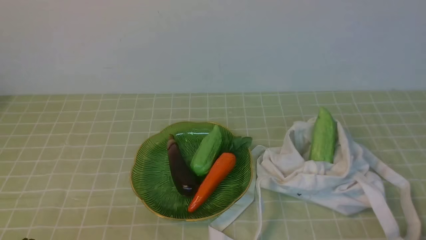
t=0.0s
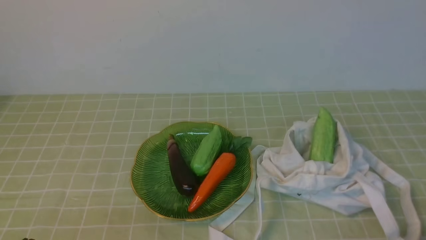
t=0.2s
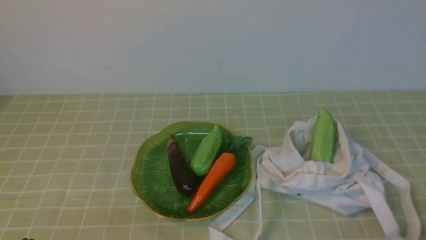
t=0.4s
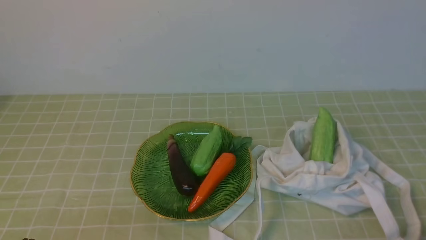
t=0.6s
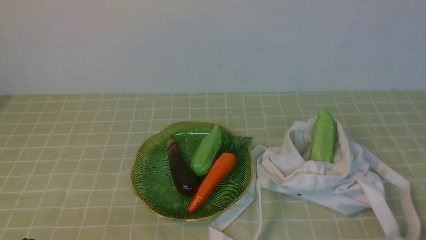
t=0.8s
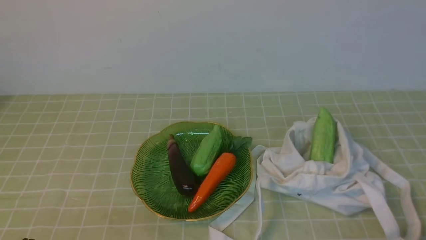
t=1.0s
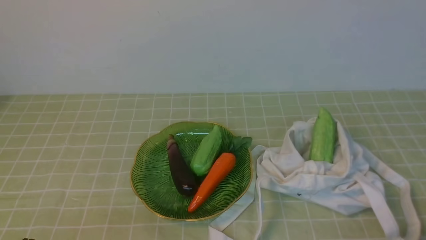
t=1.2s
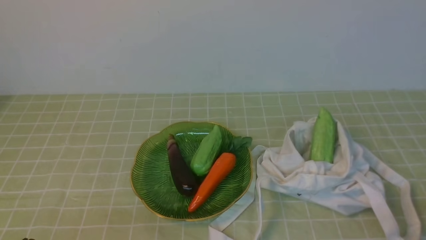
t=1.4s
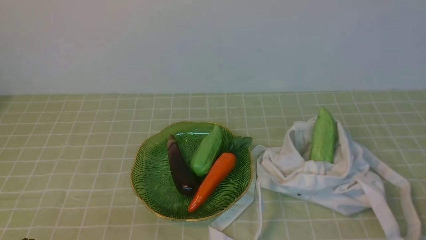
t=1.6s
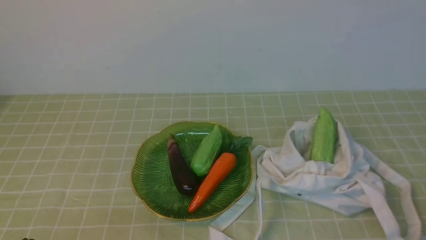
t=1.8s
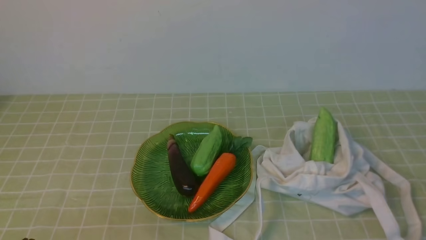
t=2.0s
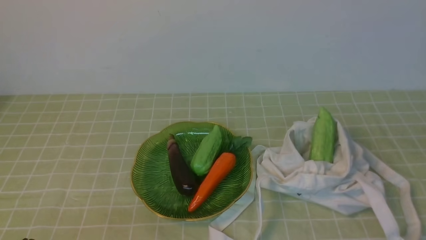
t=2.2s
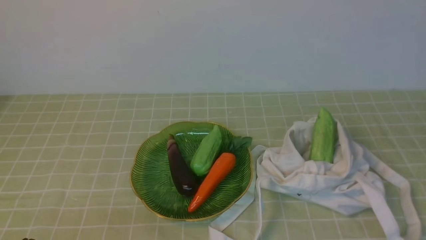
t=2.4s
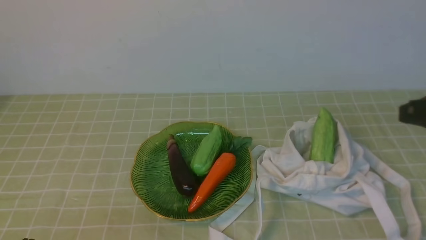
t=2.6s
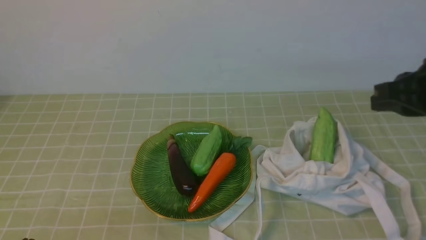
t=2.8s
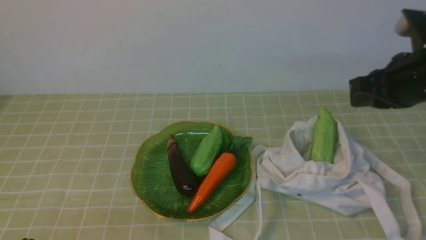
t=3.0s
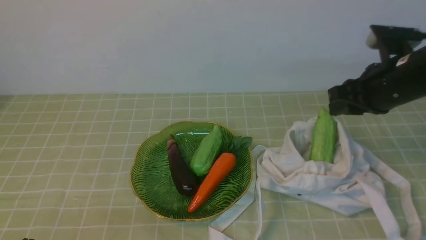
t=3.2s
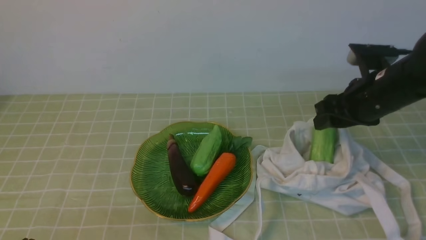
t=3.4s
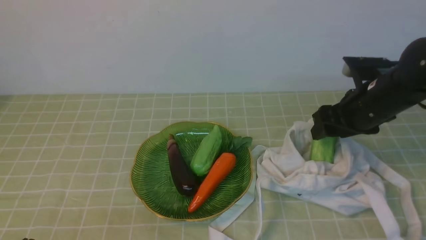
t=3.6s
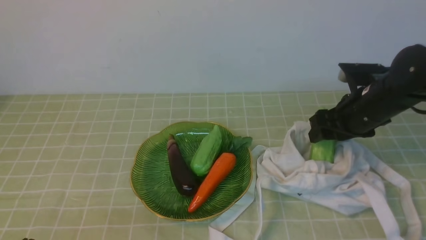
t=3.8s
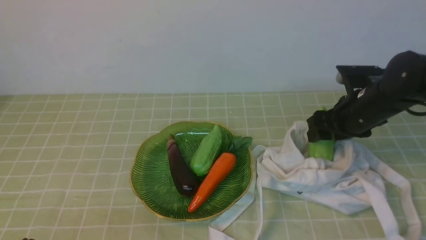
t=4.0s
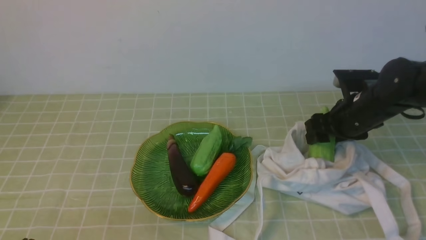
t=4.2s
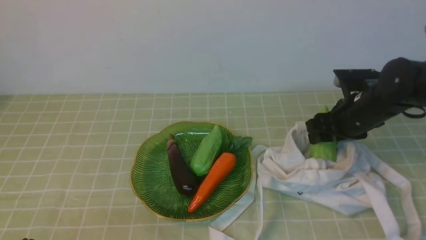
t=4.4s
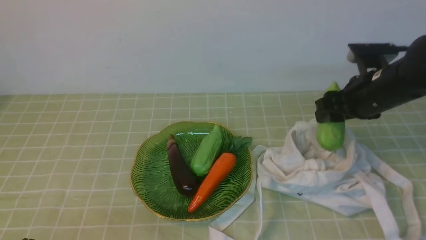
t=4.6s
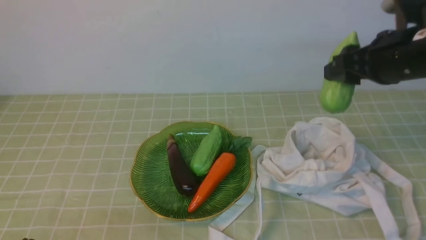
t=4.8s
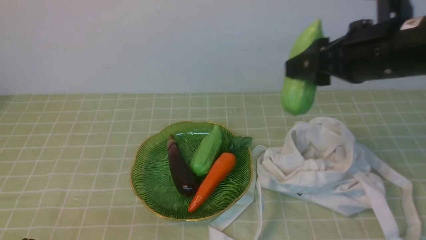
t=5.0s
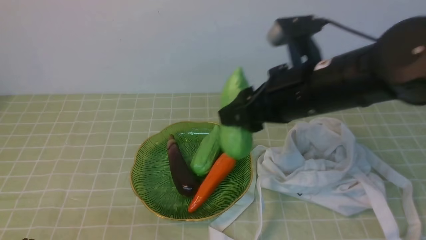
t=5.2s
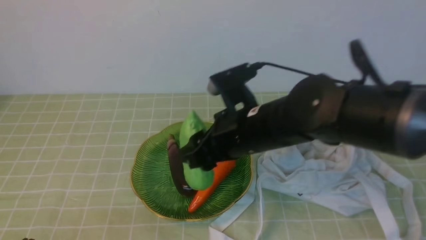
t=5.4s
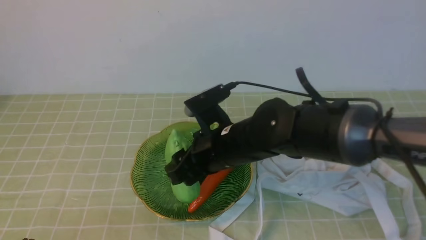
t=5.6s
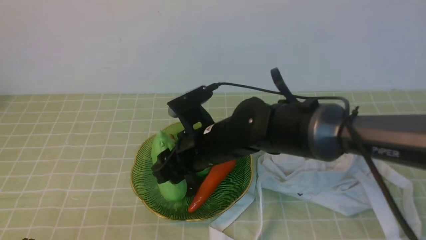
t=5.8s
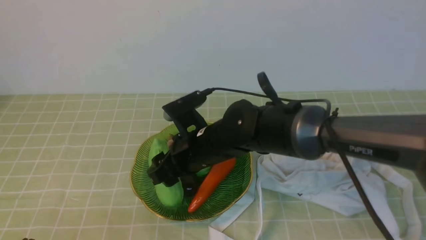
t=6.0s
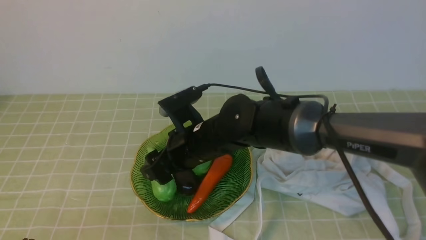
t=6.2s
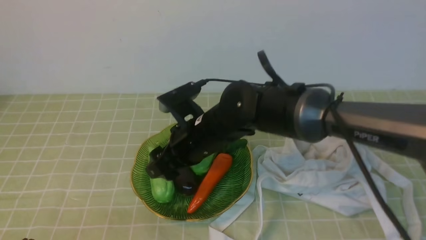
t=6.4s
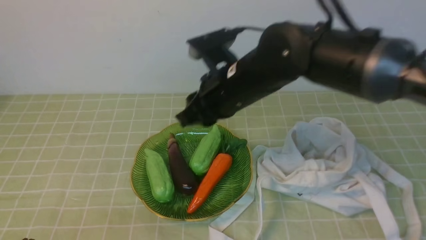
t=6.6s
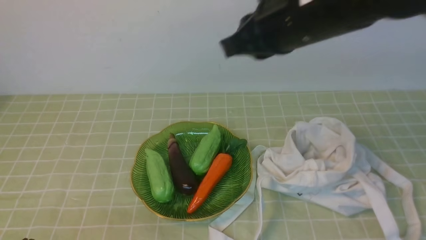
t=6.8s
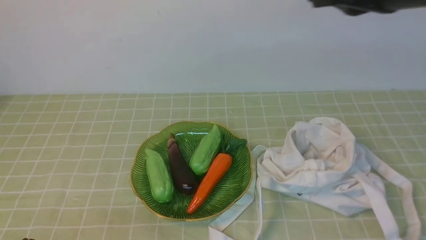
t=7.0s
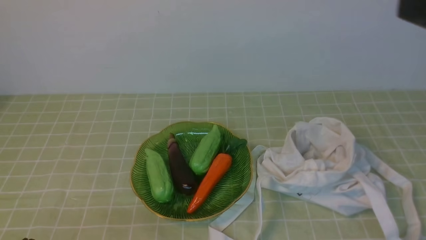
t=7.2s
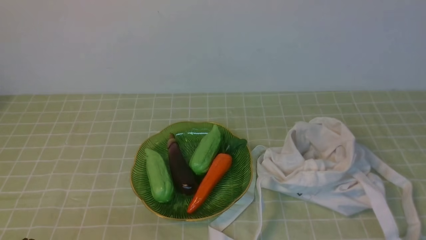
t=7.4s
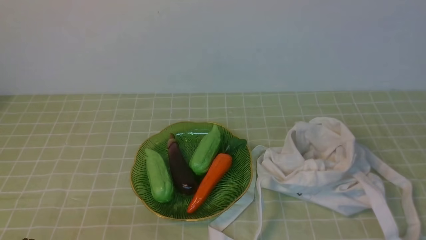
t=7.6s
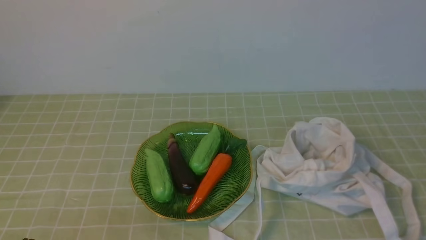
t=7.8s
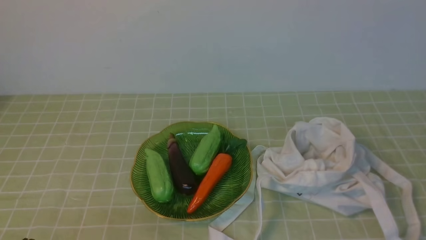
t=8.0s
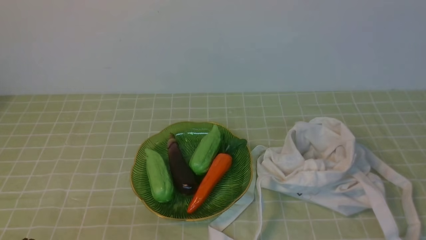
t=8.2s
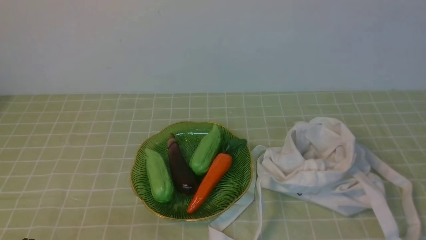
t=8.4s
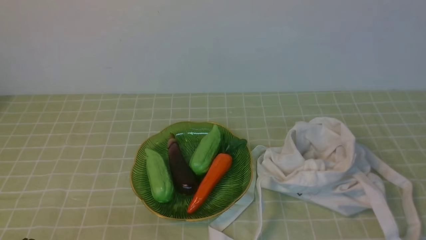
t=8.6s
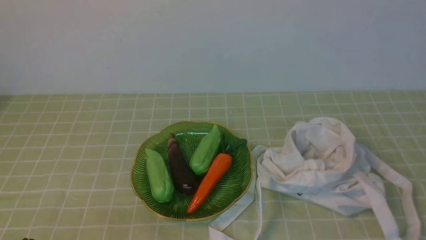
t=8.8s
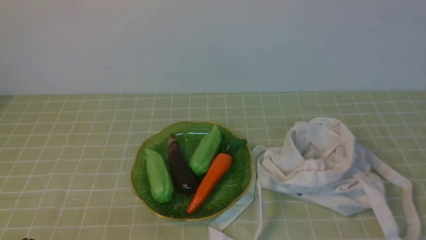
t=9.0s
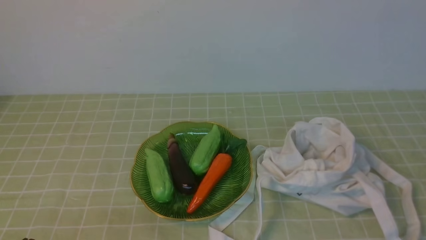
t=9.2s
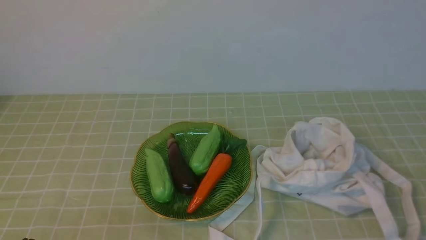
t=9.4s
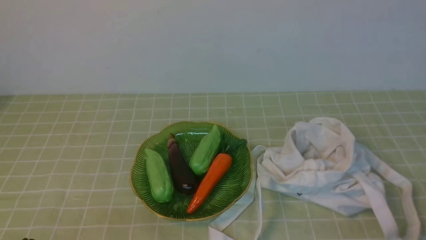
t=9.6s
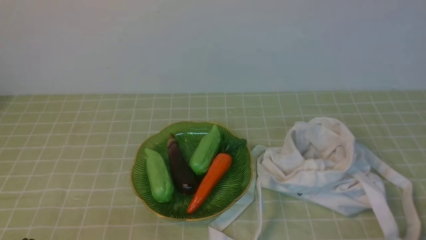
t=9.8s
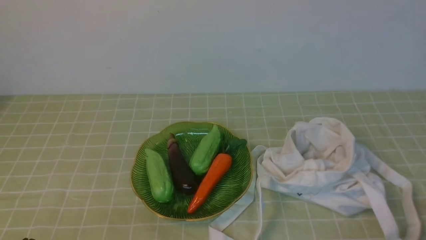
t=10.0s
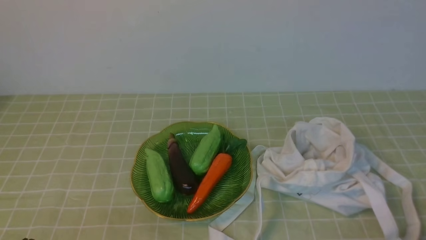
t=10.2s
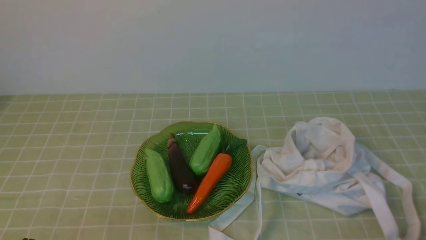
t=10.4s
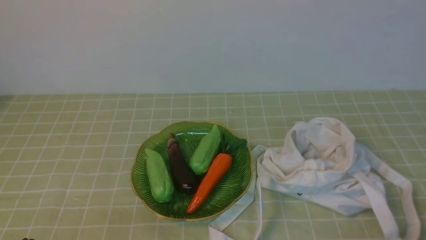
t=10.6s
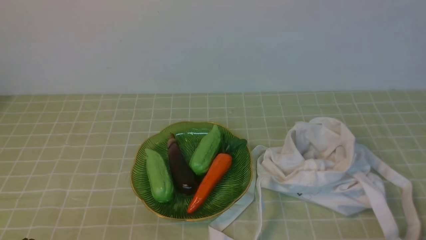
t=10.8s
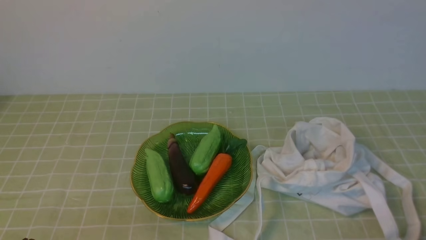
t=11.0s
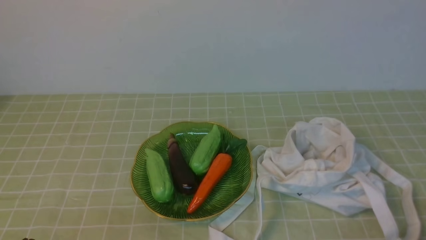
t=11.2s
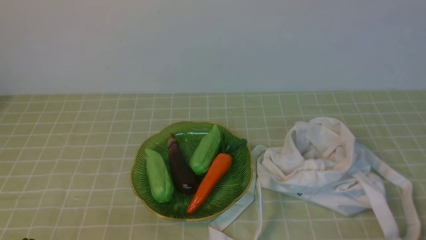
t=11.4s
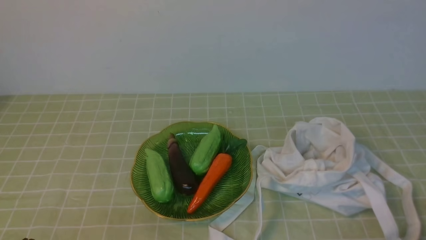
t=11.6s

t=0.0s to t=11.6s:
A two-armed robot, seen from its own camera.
Task of the whole recording: take vegetables from bag on green coffee tablecloth place on plate.
Step, t=0.0s to t=4.2s: Grasp the bitter melon with right gripper.
Step, t=4.4s to t=6.4s: Place the bitter melon on the plate with right gripper.
t=1.4s to t=2.8s: The right gripper is displaced forward and upward by some 25 cm.
t=2.8s to t=4.4s: The right gripper is displaced downward and forward by roughly 20 cm, and opens up.
t=4.4s to t=5.8s: The right gripper is displaced to the left by approximately 25 cm.
t=5.8s to t=7.2s: The right gripper moves upward, to the right and backward, roughly 35 cm, and closes its fingers.
t=7.2s to t=8.8s: The right gripper shifts approximately 20 cm backward, downward and to the right.
t=10.2s to t=11.6s: Both grippers stay put.

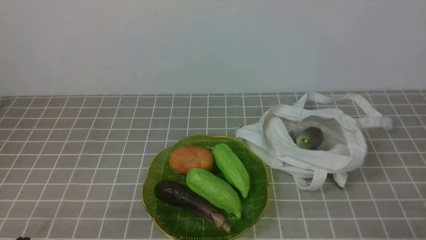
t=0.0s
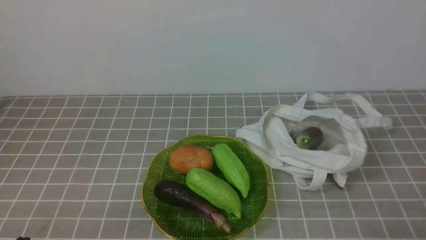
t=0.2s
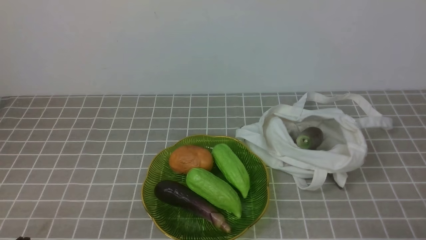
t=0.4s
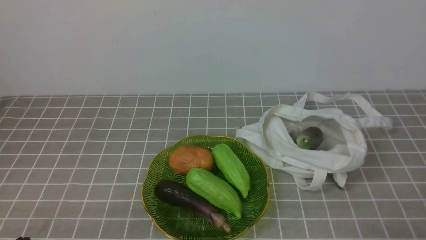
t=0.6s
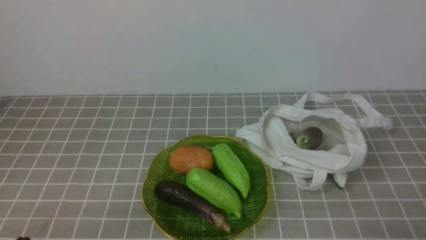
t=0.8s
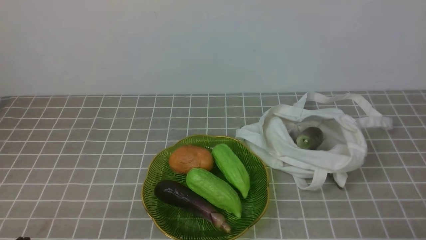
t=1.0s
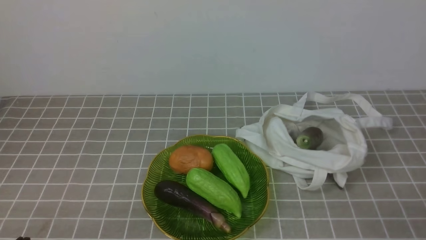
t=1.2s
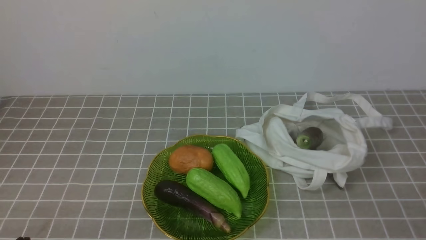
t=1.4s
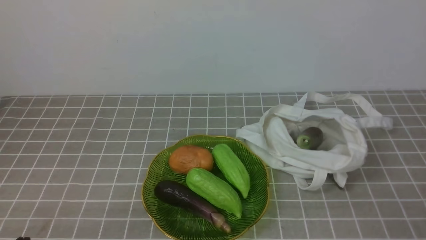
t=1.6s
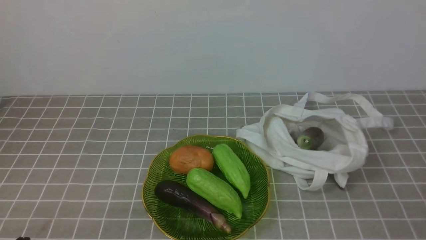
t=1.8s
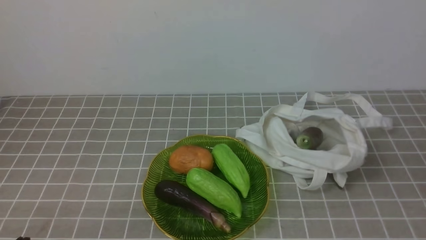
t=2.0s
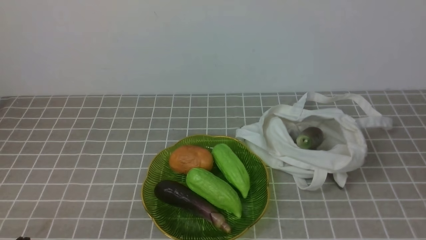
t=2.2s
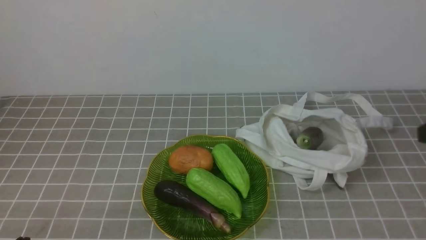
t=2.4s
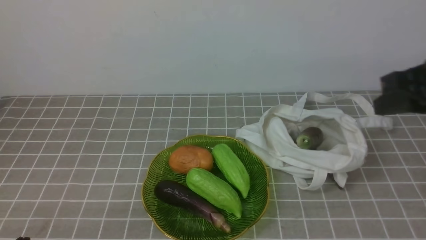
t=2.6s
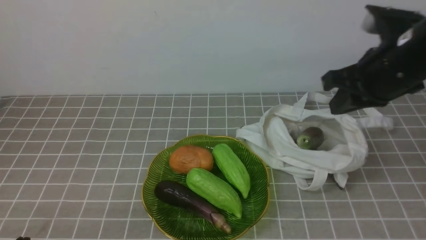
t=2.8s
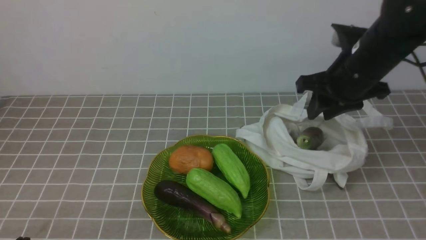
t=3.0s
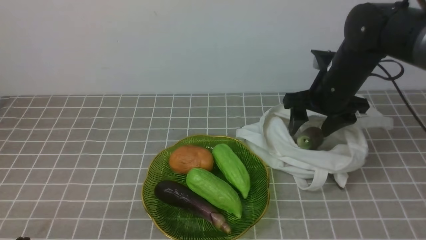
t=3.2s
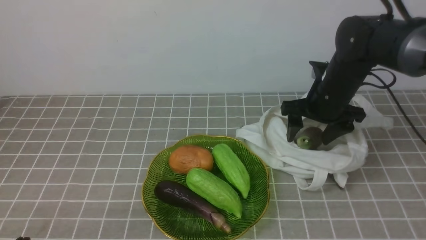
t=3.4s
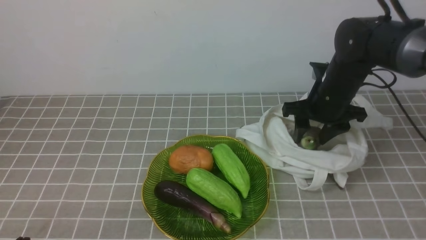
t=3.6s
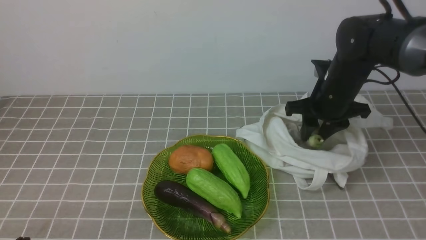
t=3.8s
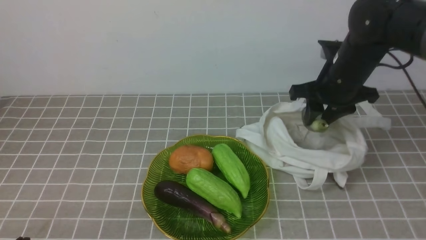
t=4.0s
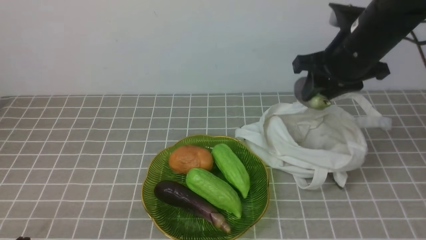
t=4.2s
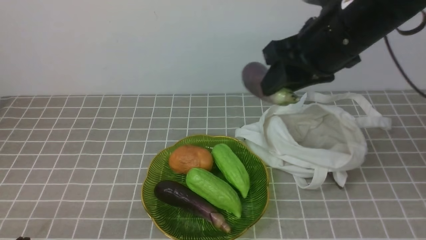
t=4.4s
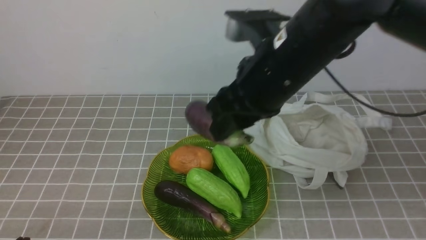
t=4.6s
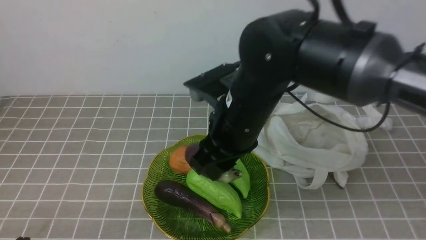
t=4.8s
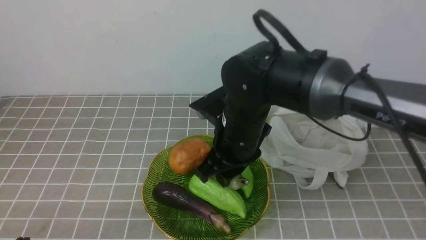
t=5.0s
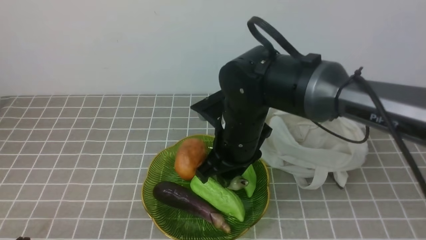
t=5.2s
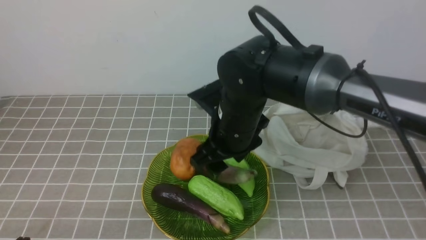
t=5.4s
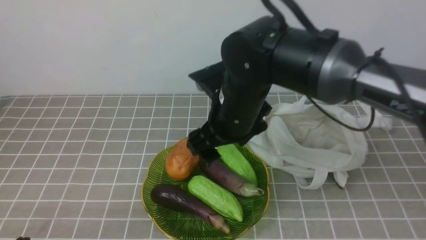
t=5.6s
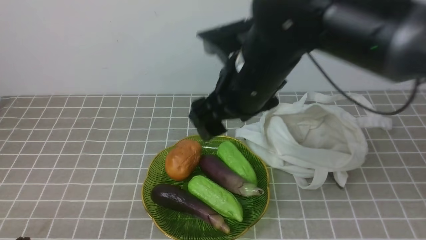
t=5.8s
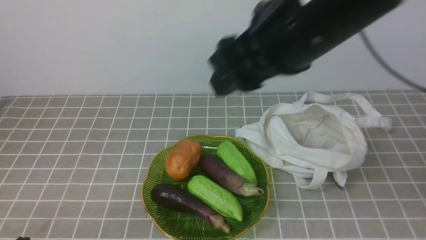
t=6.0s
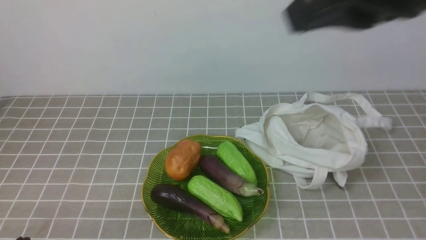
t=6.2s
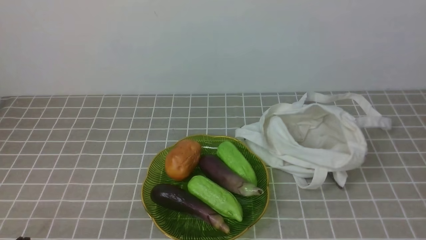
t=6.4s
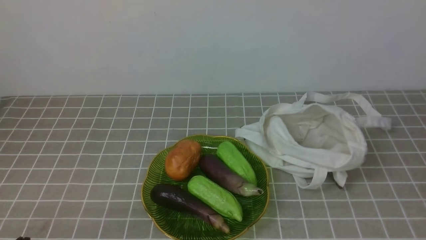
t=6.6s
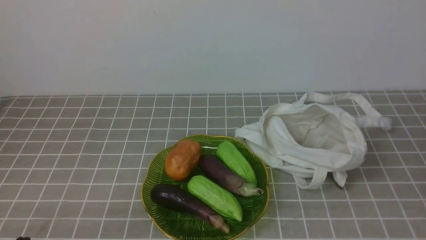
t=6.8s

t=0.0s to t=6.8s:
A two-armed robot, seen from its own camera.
Task of the whole recording: take vegetables from bag on grey coffee tablecloth place on plate.
Step, t=0.0s to t=3.6s: Grasp the eggplant with right gripper.
Step, t=3.8s to t=5.8s: Place the eggplant on the plate with right gripper.
t=1.4s to t=2.8s: The right gripper goes some 30 cm forward and upward.
t=2.8s to t=4.0s: The right gripper travels forward by roughly 5 cm, and opens and closes again.
t=4.0s to t=5.4s: The right gripper goes roughly 20 cm to the left and backward, and opens its fingers.
t=5.4s to t=6.8s: The right gripper shifts about 40 cm to the right, backward and upward, and closes its fingers.
